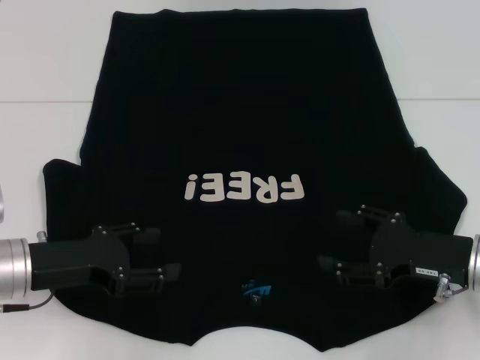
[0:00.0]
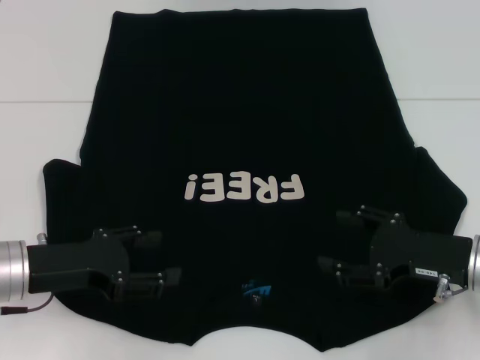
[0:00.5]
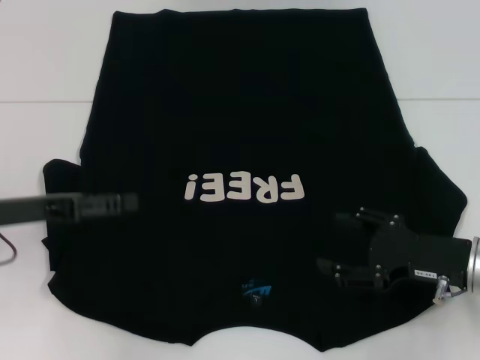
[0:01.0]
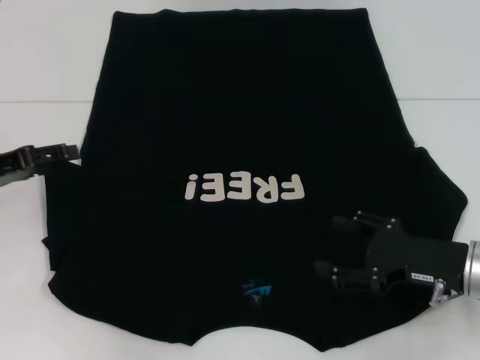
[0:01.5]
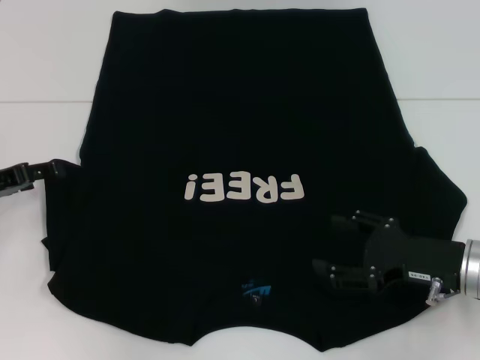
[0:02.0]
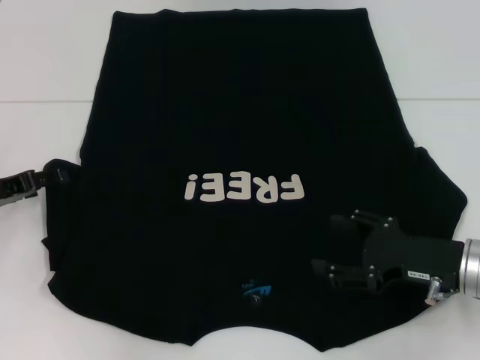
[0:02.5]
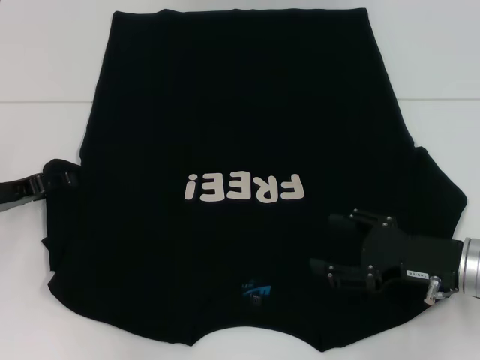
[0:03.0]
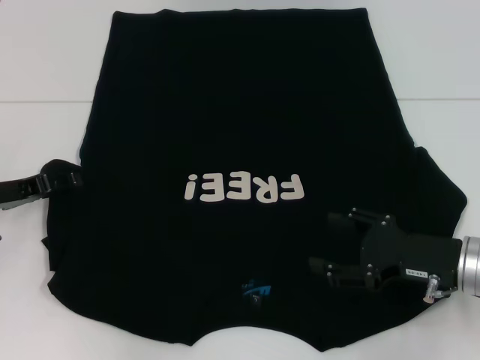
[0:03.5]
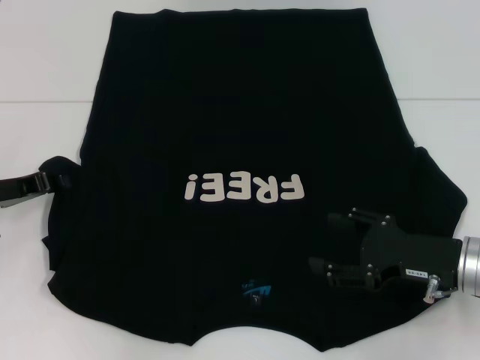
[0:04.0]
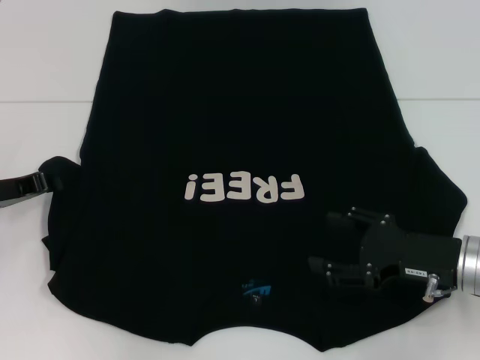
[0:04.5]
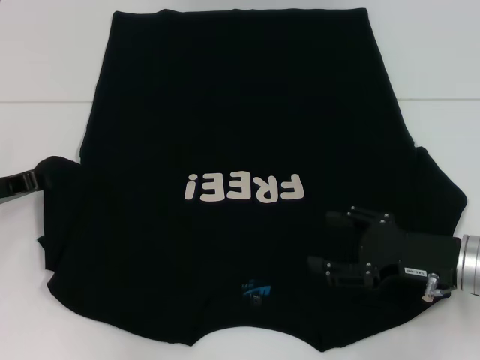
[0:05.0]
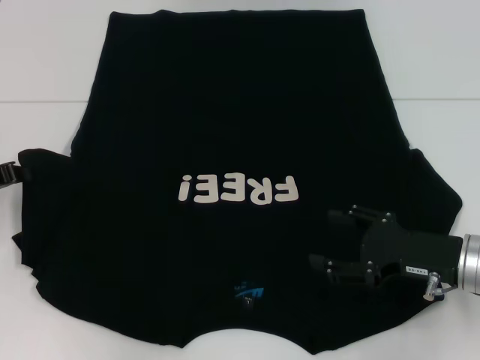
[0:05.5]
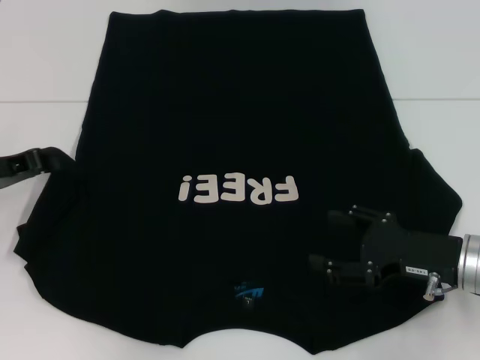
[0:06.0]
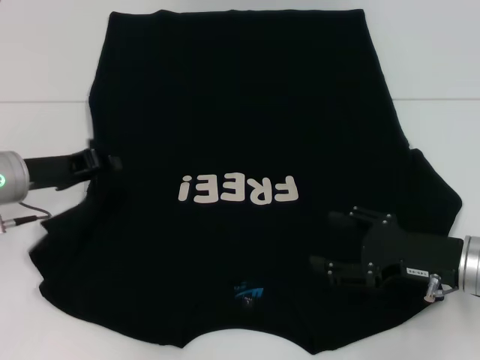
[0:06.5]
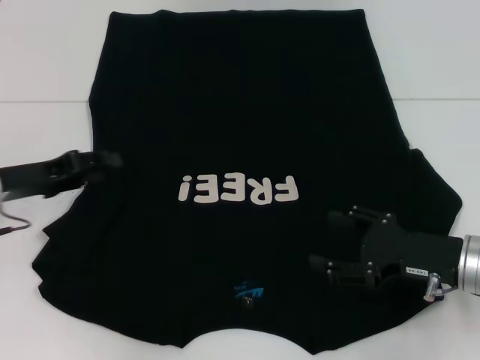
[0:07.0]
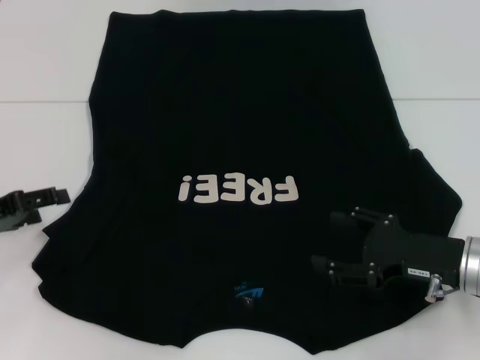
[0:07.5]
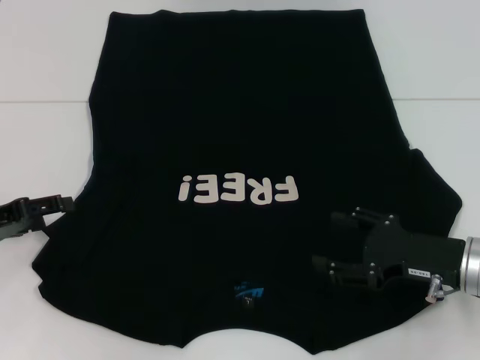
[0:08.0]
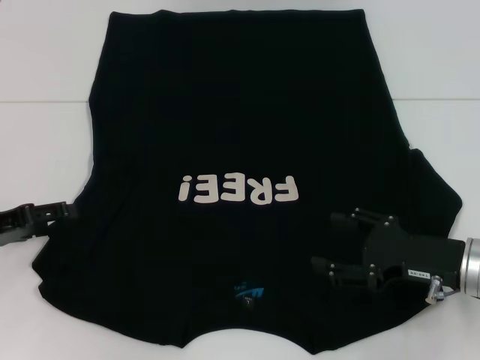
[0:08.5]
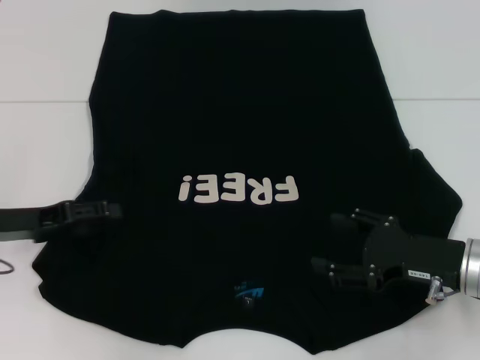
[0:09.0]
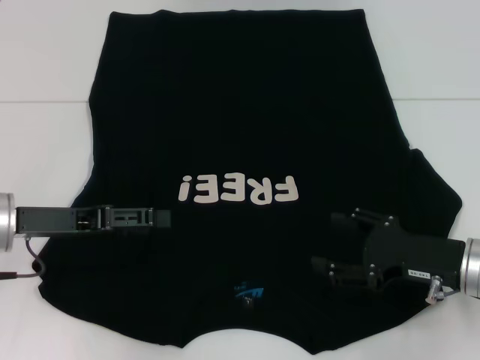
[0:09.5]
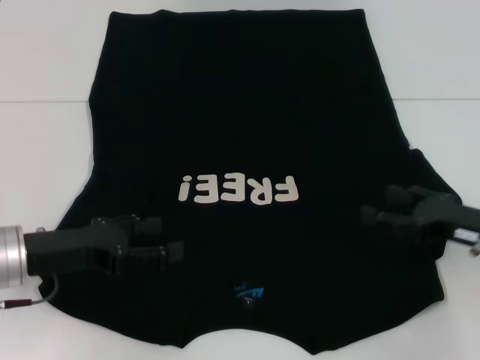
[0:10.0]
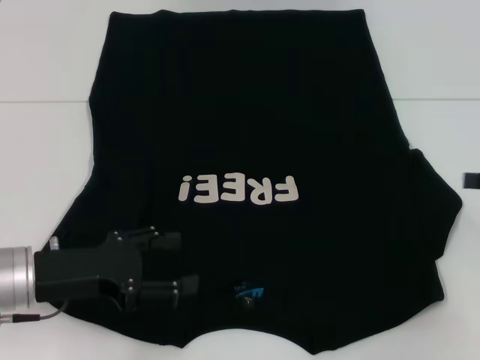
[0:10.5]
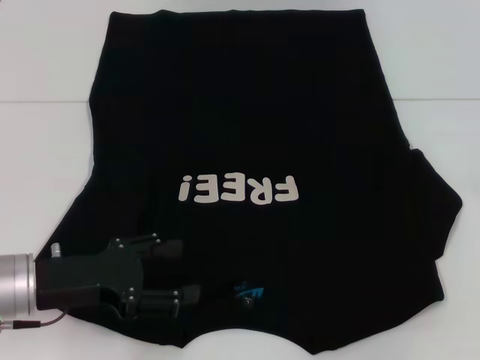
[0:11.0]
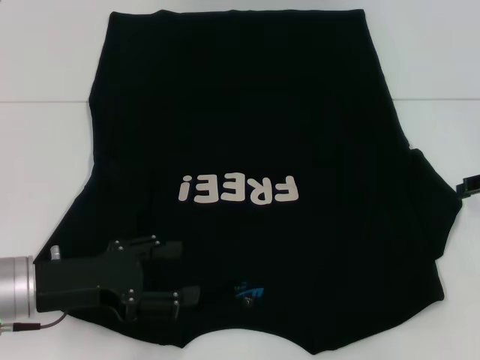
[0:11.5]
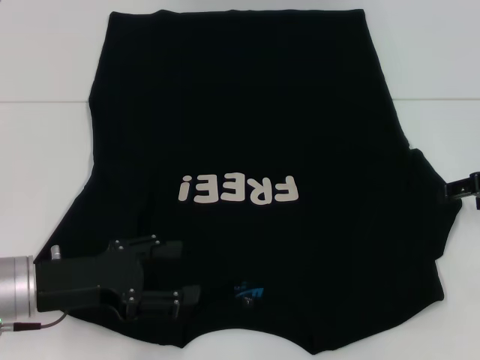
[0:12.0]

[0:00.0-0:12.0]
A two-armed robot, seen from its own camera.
Step, 0:00.0 to 0:09.5: Fold the bottom left sleeve with your left hand.
0:00.0 to 0:02.0: The left gripper goes roughly 10 cm to the left and forward.
0:02.0 to 0:04.0: The left gripper closes its fingers.
0:04.0 to 0:06.0: The left gripper closes up.
0:06.0 to 0:08.0: The left gripper moves roughly 5 cm, and opens.
0:08.0 to 0:10.0: The left gripper moves to the right, some 10 cm.
0:10.0 to 0:12.0: The right gripper shifts approximately 10 cm forward and upward.

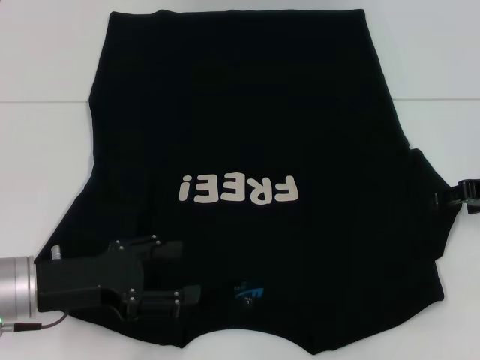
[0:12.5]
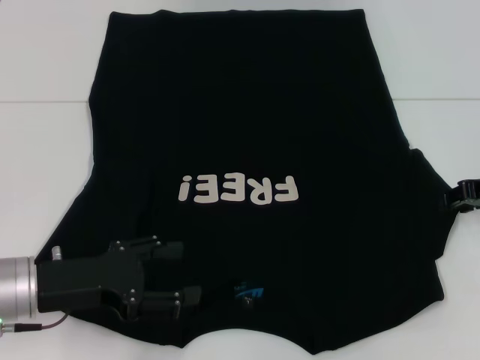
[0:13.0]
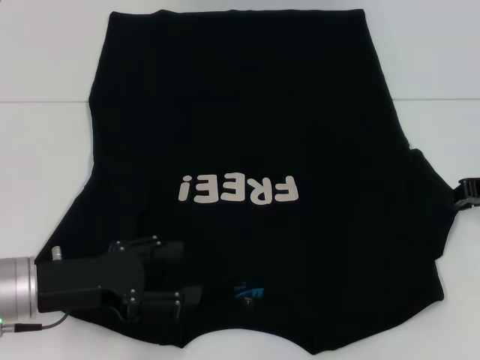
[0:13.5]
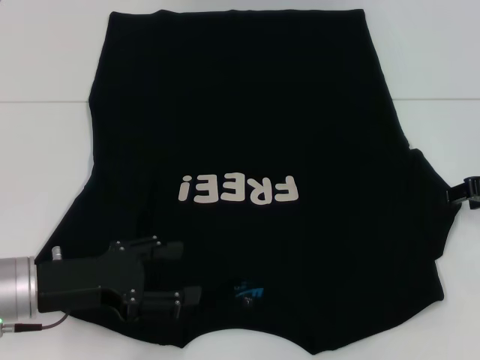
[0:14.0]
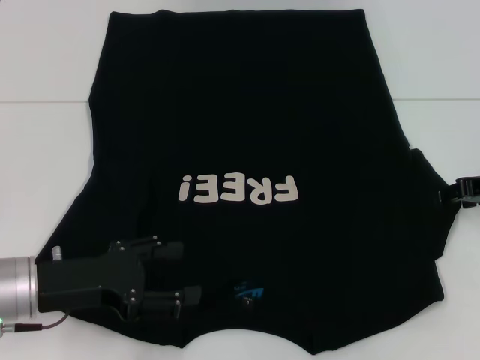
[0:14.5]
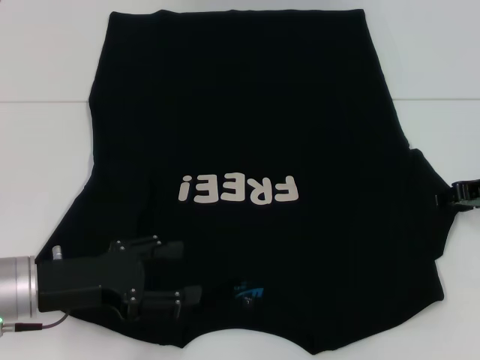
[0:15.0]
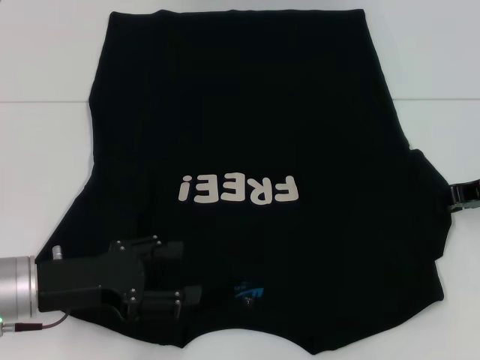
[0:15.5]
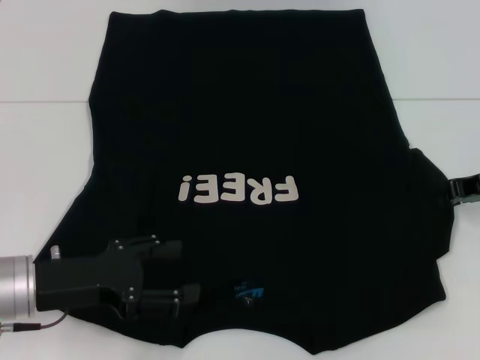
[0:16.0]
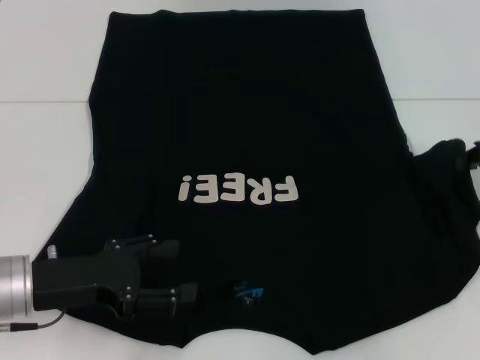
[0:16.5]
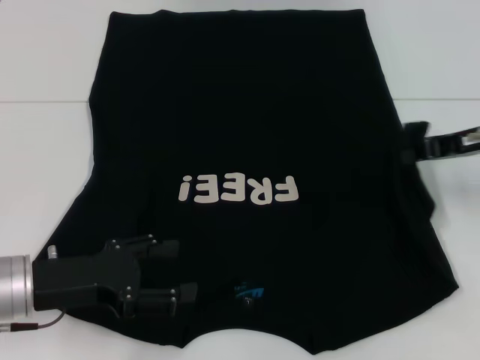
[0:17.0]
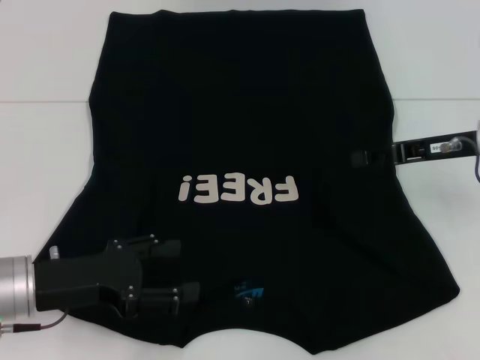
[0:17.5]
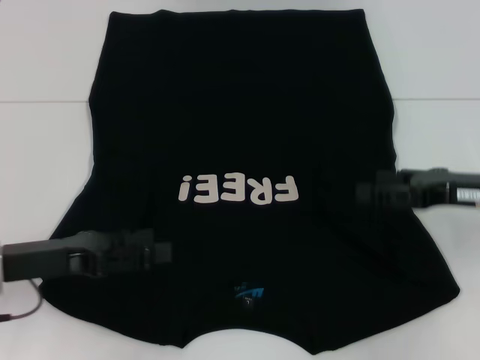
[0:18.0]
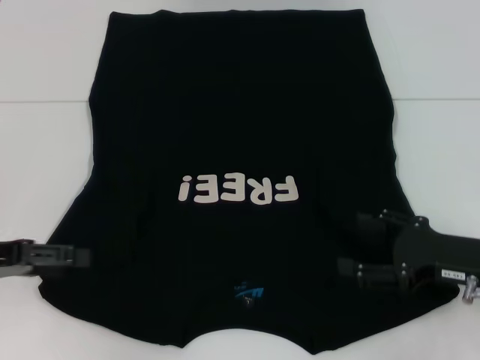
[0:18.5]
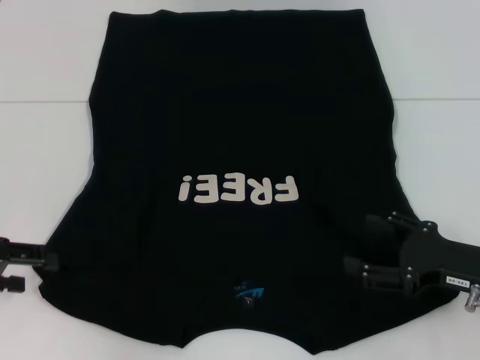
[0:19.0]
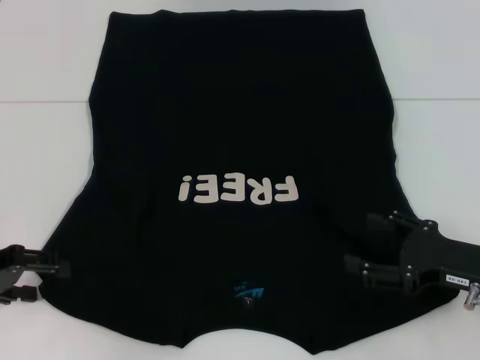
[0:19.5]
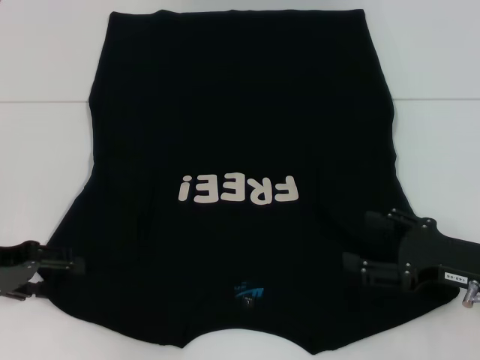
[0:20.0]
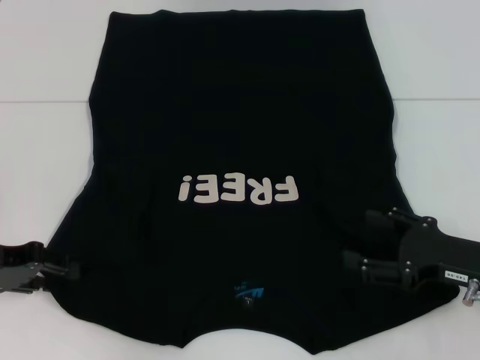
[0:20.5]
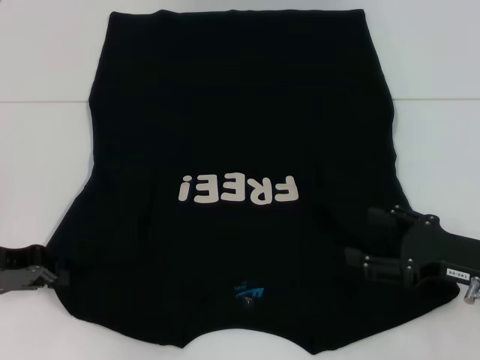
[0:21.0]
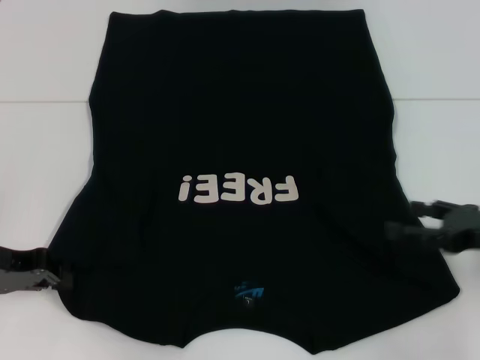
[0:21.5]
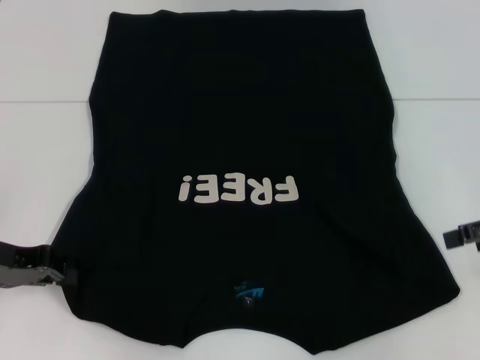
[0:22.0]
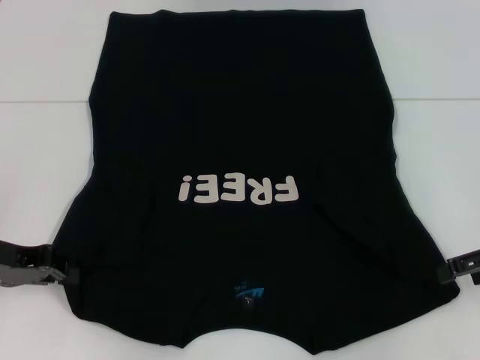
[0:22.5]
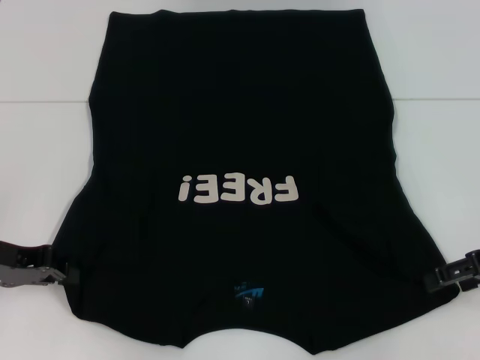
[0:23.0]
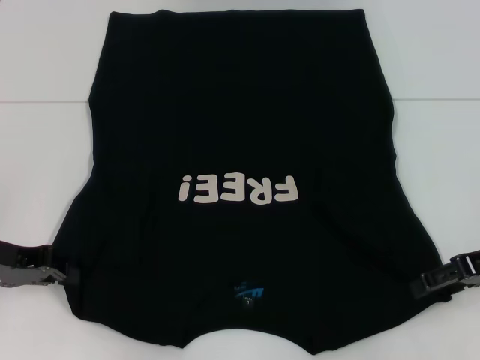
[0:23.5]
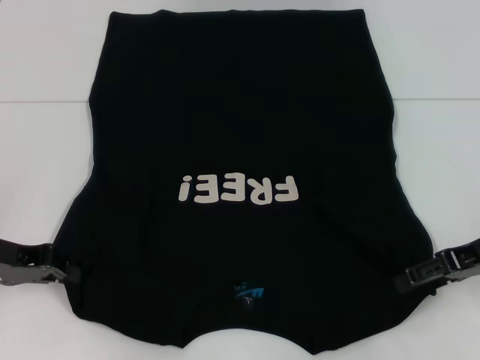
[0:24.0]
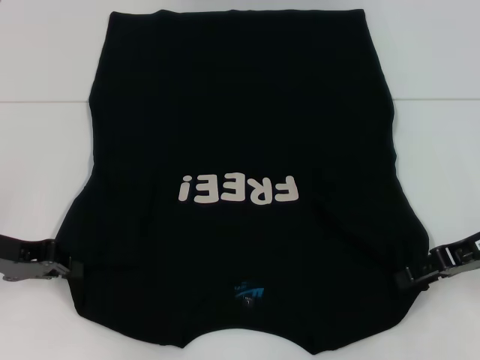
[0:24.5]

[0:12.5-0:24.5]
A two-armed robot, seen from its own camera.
Step, 0:12.5 to 0:17.5: Fold the bottom right sleeve with your right hand.
Step, 0:18.0 to 0:21.0: Grab the bottom left corner with your left hand.
0:14.5 to 0:16.5: The right gripper closes its fingers.
0:16.5 to 0:18.5: The right gripper travels backward, downward and to the left by about 15 cm, and opens; the left gripper travels to the left by approximately 10 cm.
0:20.5 to 0:22.5: The left gripper closes; the right gripper is displaced upward, to the right and forward by some 10 cm.
0:22.5 to 0:24.5: The right gripper ends up some 5 cm from where it was.

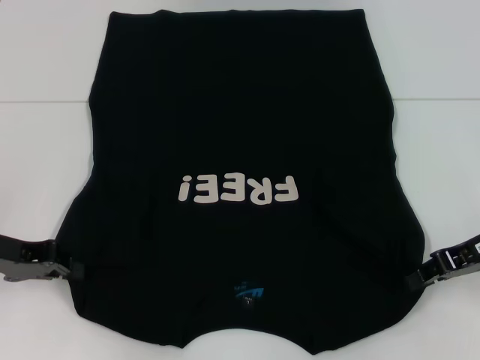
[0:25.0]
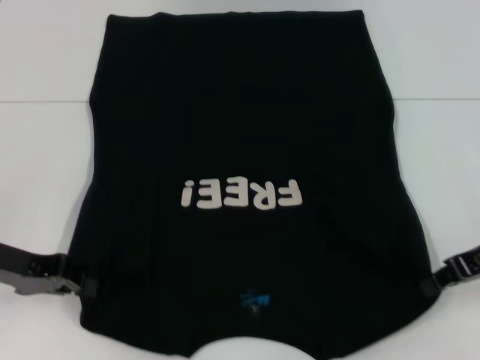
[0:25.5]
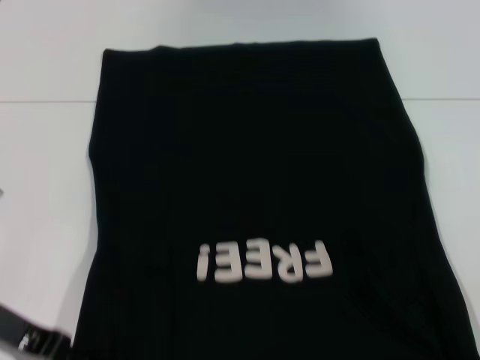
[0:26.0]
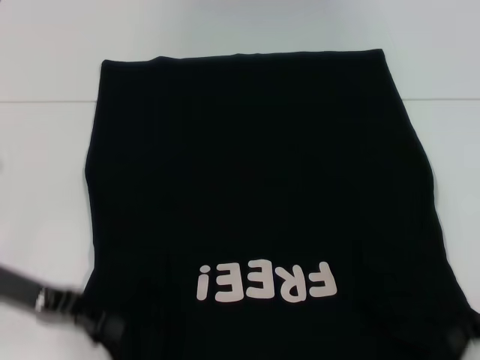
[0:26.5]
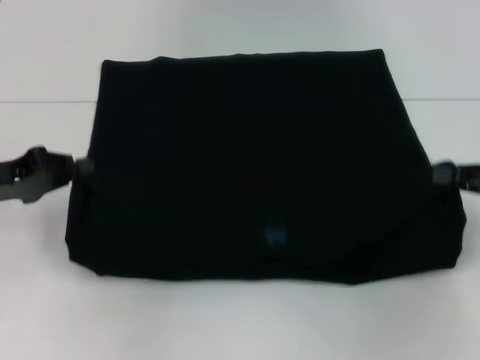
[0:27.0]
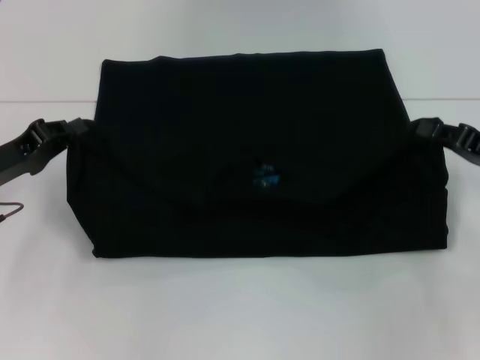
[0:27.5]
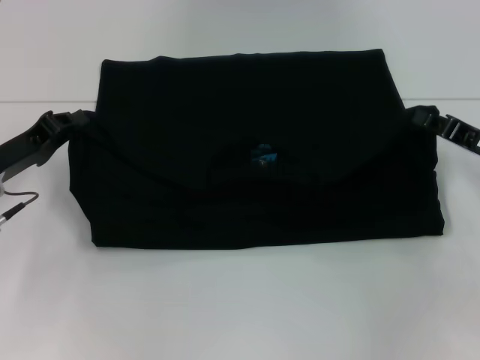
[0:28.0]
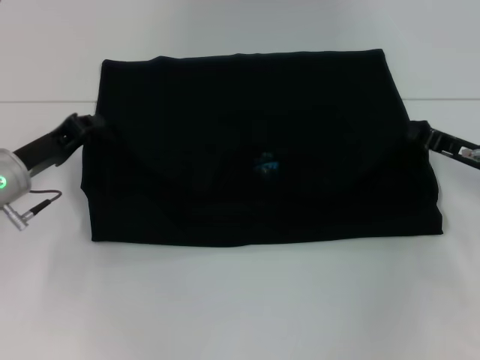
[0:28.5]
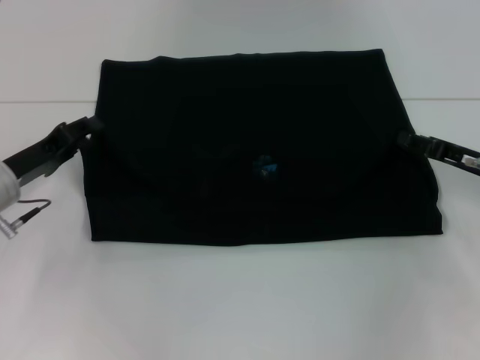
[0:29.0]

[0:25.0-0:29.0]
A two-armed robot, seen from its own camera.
0:25.0 to 0:27.0: The right gripper is displaced to the right by some 5 cm.
0:27.0 to 0:29.0: The right gripper heads downward and to the left, covering some 5 cm. The left gripper shifts some 5 cm downward.
